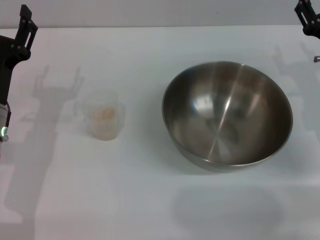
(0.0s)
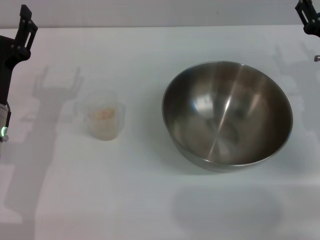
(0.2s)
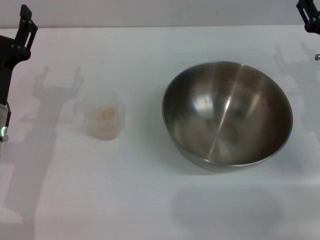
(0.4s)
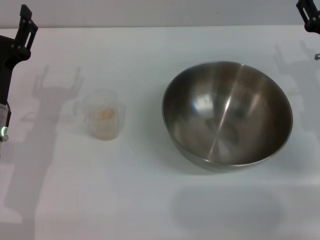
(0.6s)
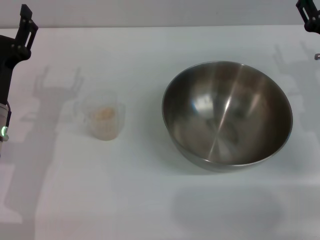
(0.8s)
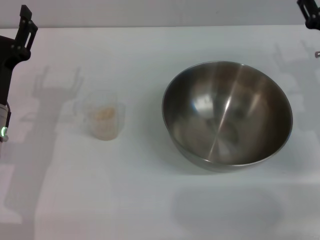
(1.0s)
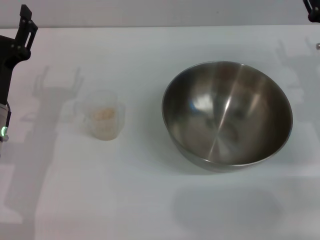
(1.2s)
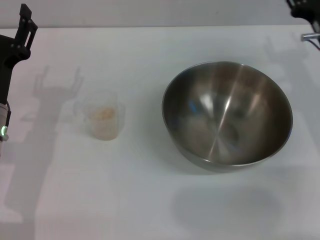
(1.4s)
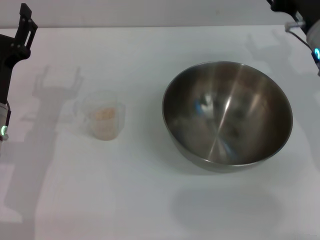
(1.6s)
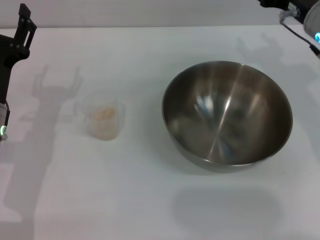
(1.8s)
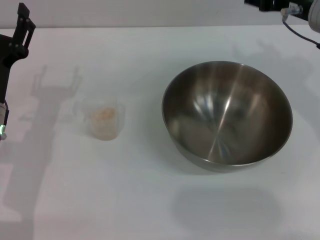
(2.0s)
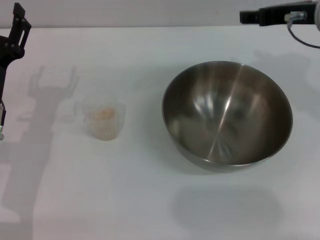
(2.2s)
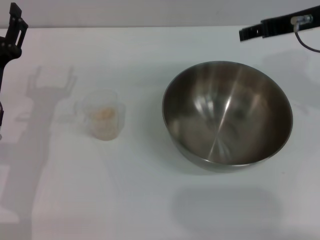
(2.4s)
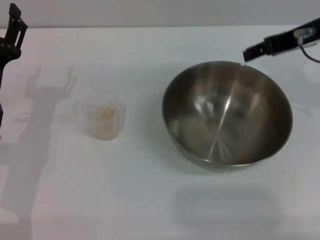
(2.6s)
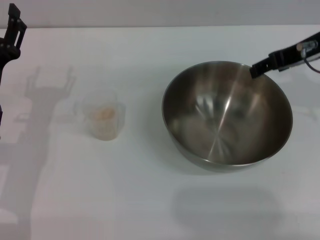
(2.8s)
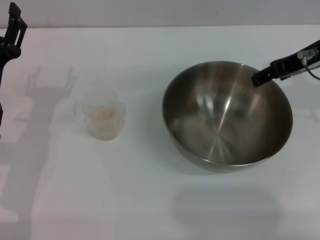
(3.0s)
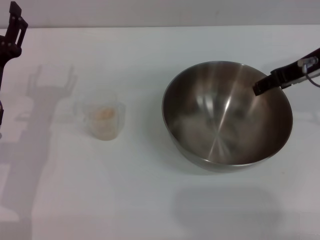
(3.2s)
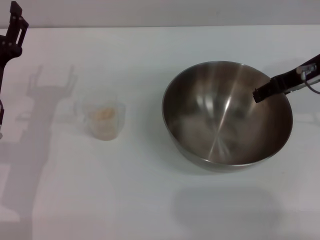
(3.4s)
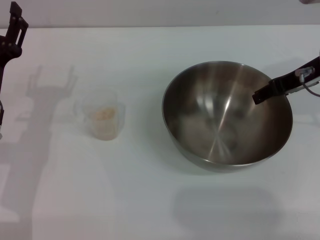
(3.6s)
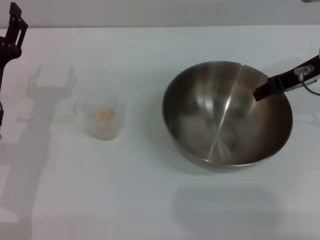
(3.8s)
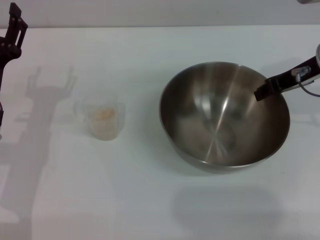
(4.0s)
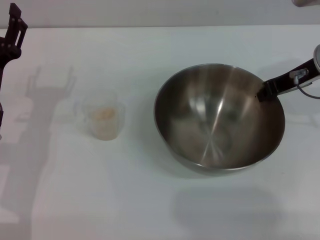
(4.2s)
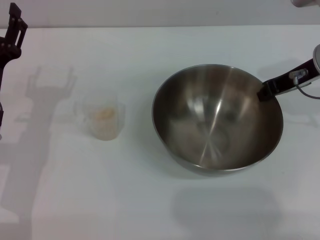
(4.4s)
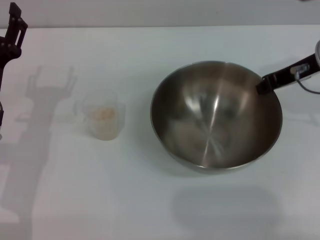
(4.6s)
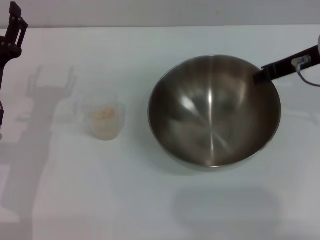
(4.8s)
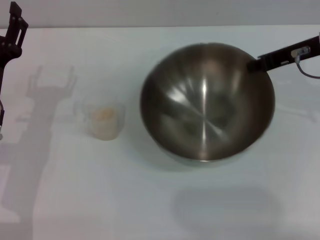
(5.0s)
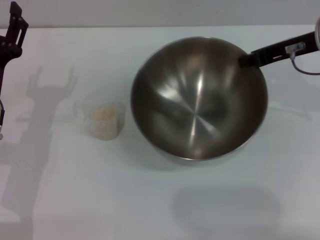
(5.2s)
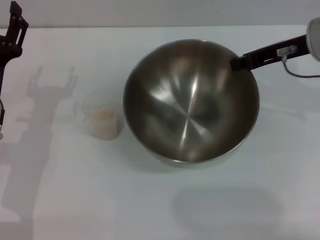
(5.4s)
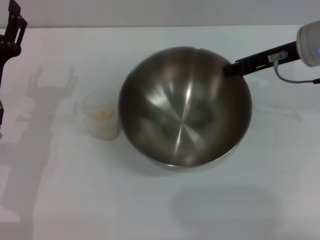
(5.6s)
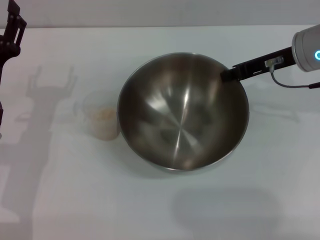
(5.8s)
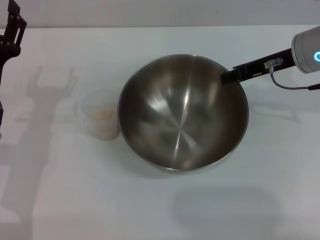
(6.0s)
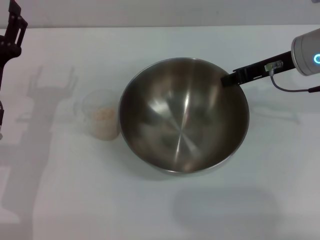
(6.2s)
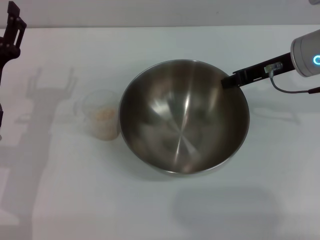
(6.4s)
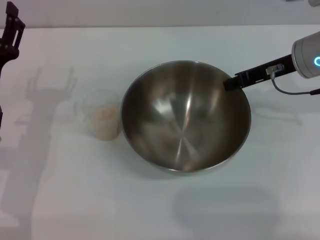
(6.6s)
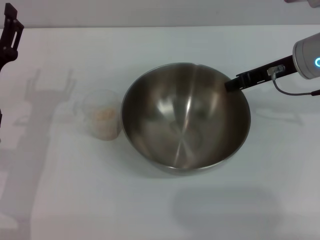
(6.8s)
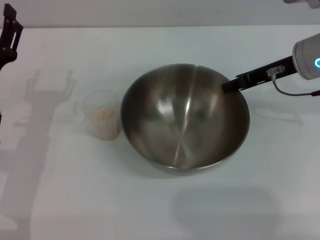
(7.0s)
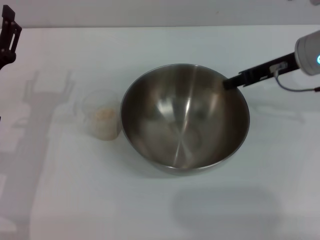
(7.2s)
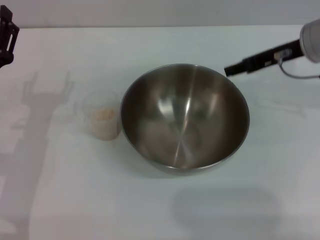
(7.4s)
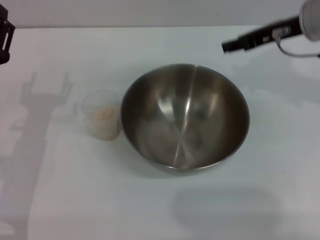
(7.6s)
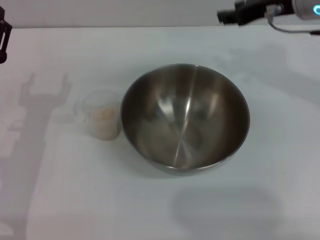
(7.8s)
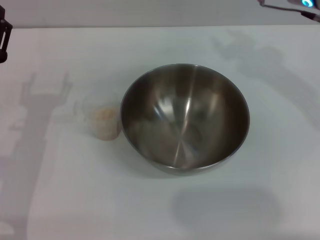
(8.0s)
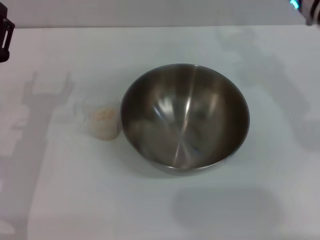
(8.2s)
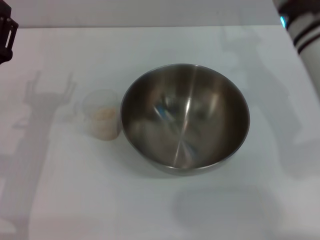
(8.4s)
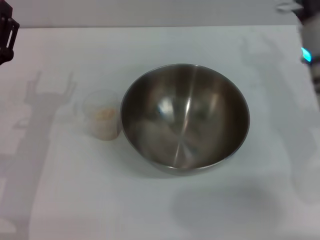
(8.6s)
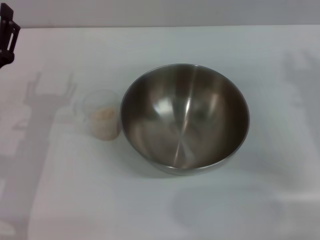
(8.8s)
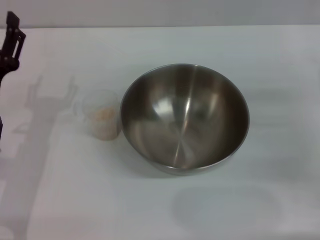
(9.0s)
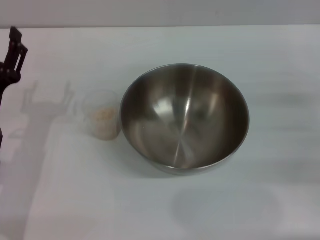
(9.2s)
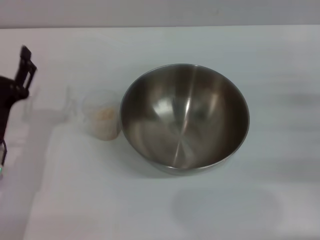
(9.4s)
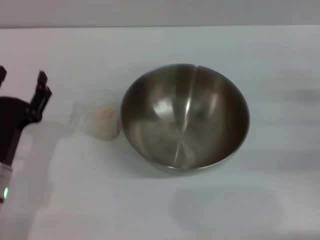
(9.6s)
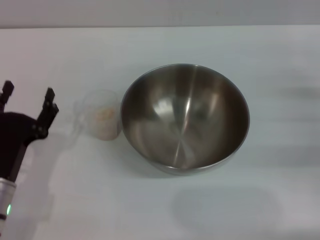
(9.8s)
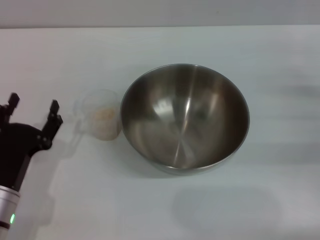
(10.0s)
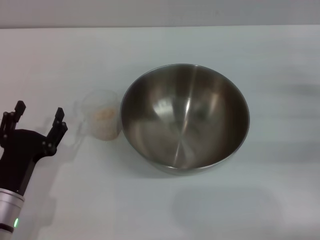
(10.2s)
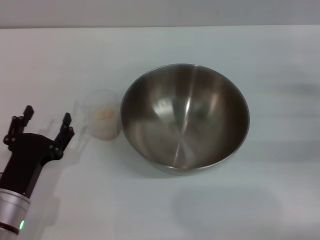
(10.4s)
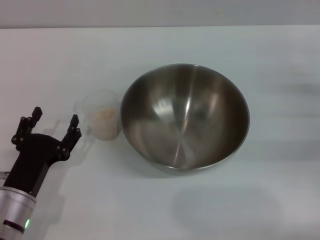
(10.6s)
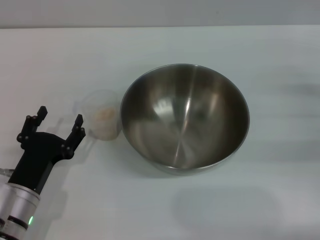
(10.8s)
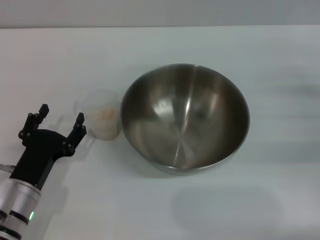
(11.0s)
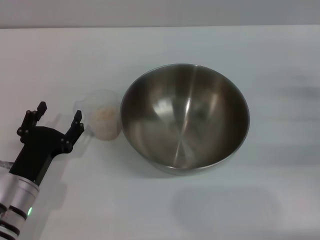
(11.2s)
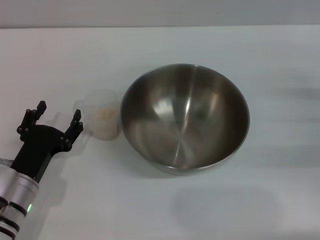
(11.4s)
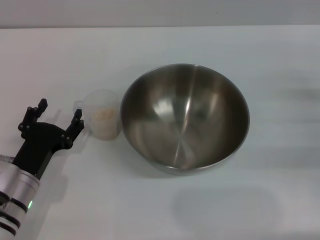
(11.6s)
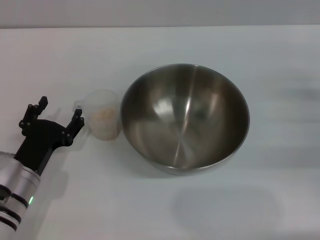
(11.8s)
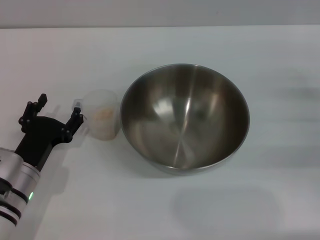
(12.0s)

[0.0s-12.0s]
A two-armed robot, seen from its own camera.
Task of the whole recording: Place the bowl in the middle of the table with one hand and pour the rice from the grain cup into it with the other hand.
Step, 0.0s to 7.6s: Place the bowl in the center of view with the right gripper.
0.0s to 1.6s: The right gripper moves upward, about 5 cm.
1.6s to 3.0s: The right gripper is displaced upward by approximately 10 cm.
3.0s to 4.4s: The right gripper closes its fingers.
6.0s to 7.6s: The right gripper opens its fingers.
7.6s to 9.0s: The right gripper moves downward, backward and to the right, about 20 cm.
9.0s to 10.4s: The left gripper shifts roughly 10 cm backward and downward.
10.4s to 12.0s: The grippers make only small movements.

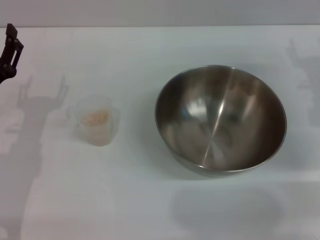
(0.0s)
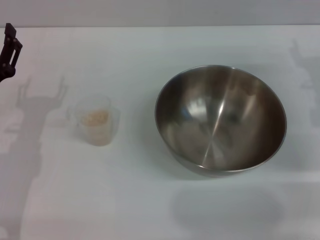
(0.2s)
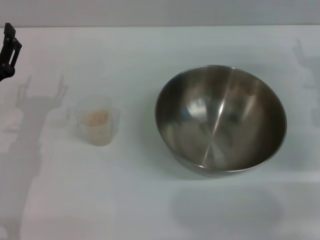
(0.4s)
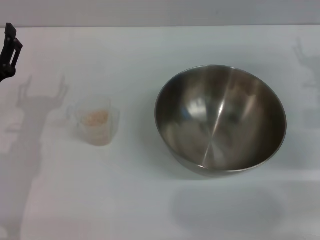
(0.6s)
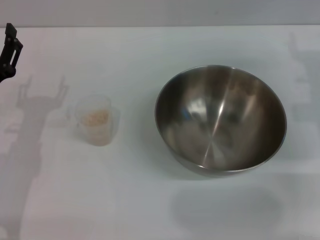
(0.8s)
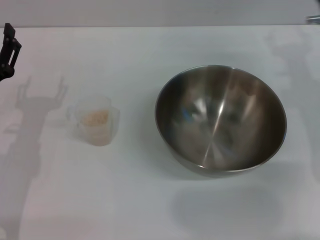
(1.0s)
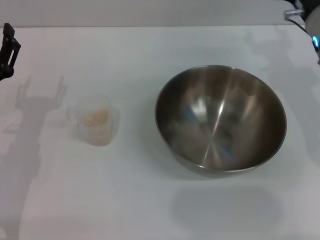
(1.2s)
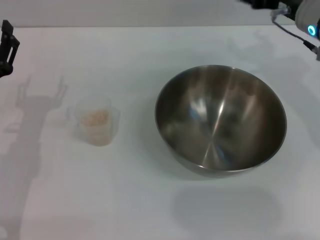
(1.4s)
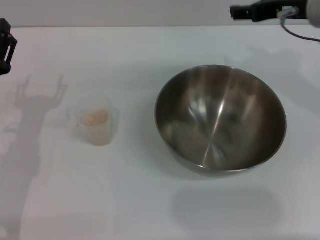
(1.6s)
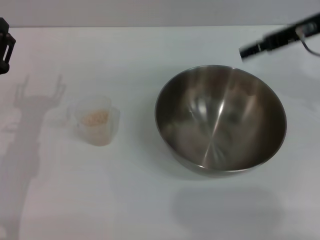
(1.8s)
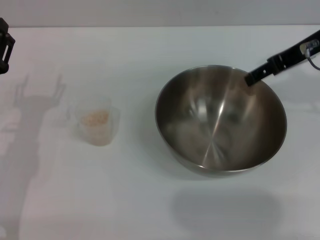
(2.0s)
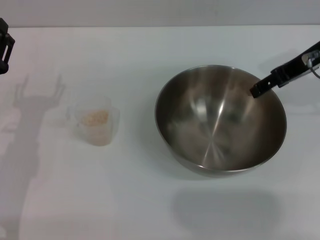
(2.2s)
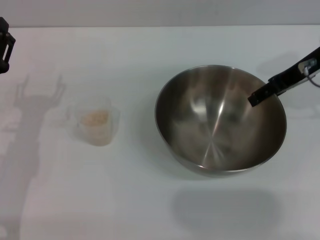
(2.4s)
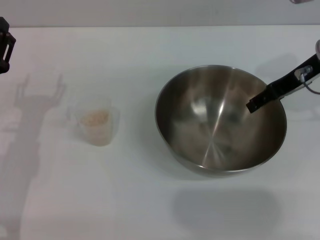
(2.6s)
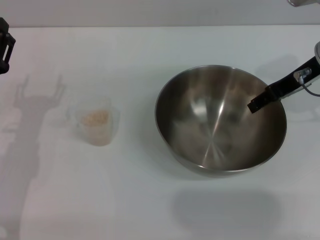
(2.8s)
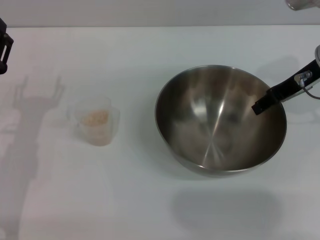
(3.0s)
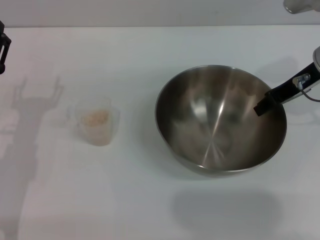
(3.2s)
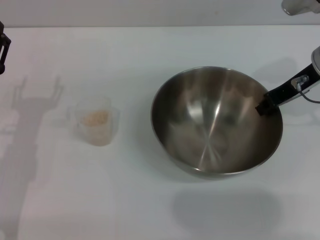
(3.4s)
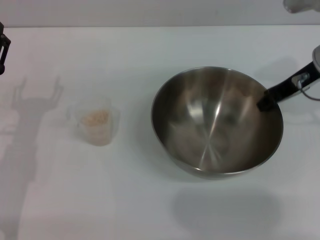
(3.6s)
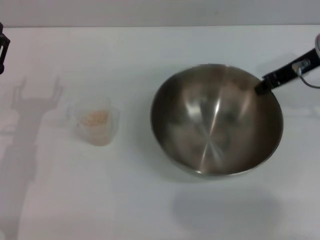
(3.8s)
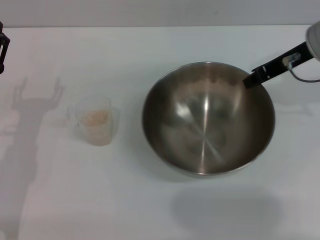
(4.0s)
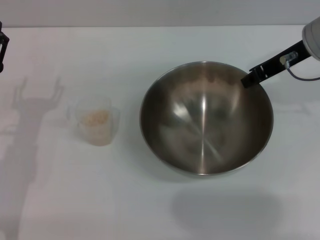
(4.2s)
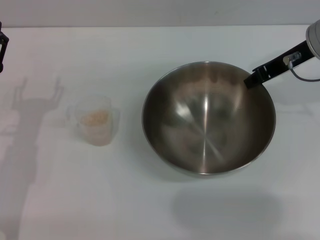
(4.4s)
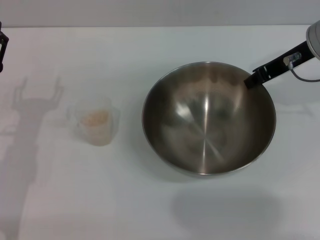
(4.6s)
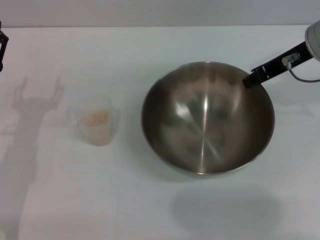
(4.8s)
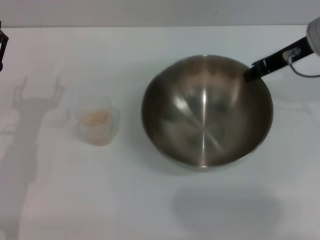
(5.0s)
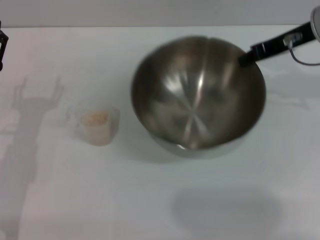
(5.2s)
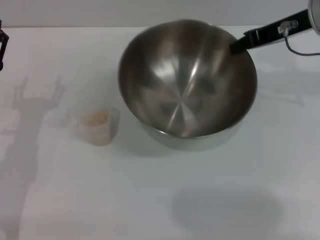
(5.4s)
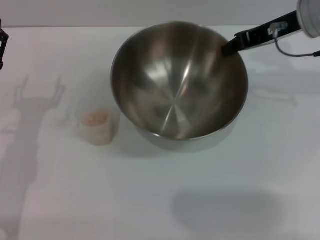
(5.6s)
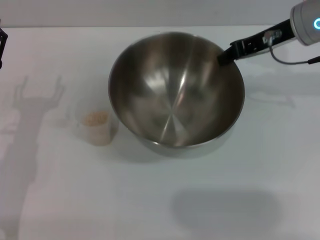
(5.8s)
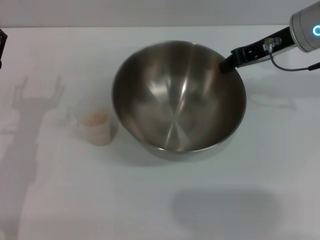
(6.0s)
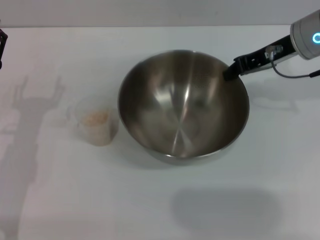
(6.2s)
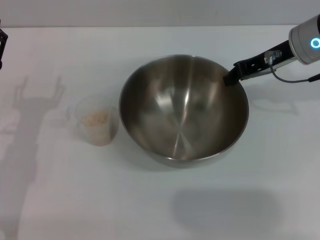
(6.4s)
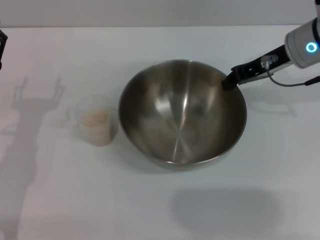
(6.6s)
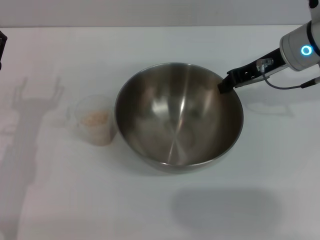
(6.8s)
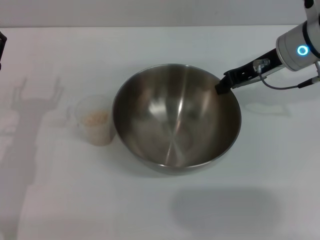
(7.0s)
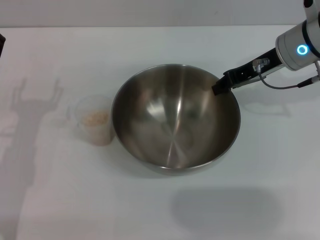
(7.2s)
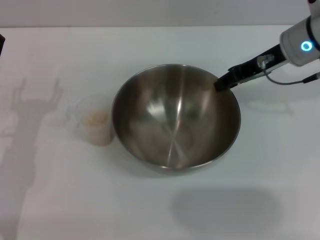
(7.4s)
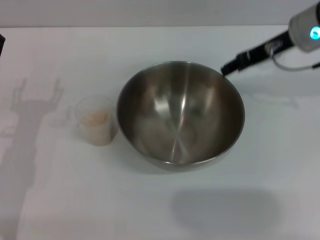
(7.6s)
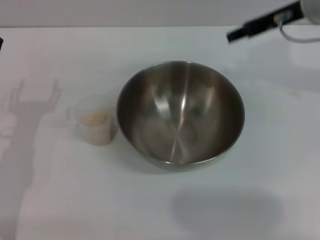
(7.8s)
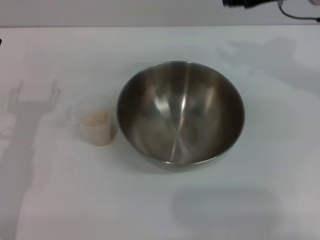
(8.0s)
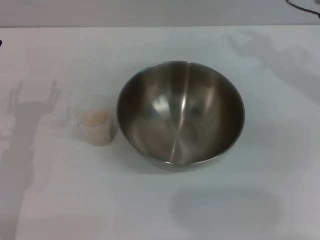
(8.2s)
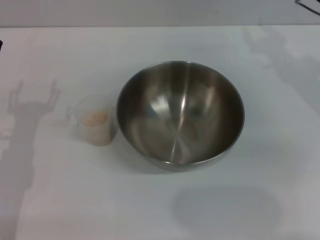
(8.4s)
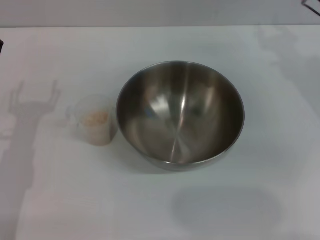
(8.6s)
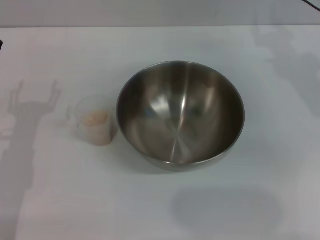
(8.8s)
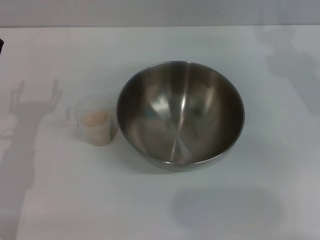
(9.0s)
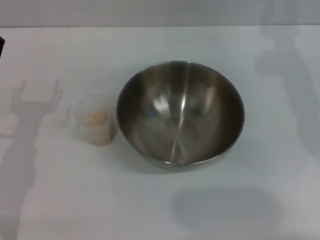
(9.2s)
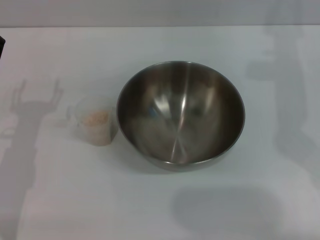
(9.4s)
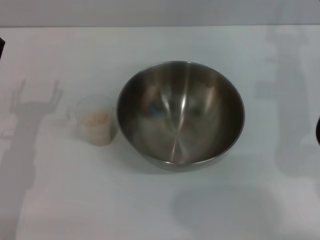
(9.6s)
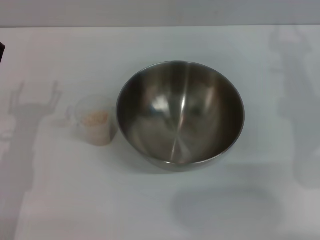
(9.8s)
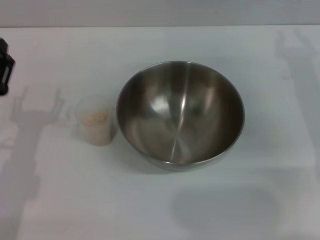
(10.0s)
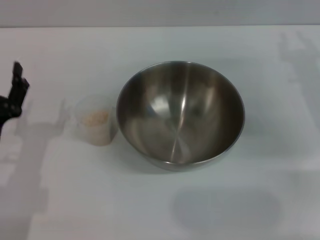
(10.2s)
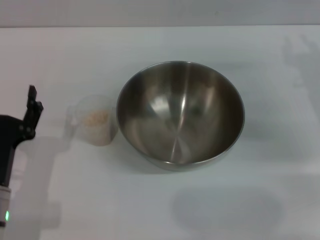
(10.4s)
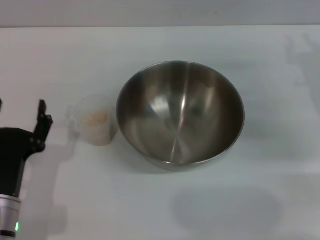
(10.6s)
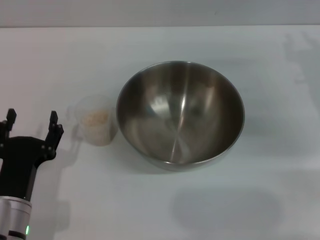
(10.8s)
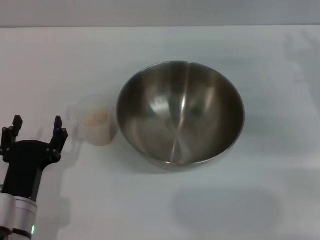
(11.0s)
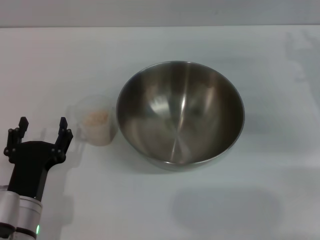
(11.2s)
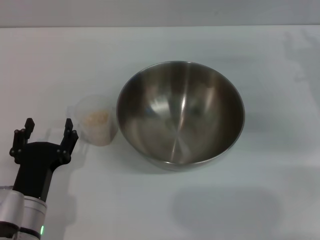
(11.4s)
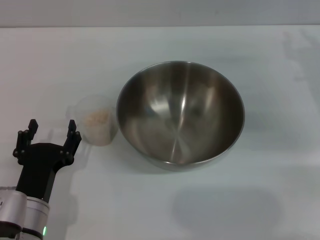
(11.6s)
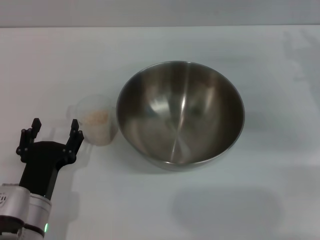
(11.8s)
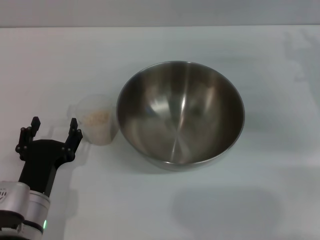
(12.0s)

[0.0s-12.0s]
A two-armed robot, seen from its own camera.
Task of the whole recording: Place the bowl in the middle of the table with one hand and pour the rice from the grain cup into it with the other hand.
Step, 0.0s to 5.0s: Pick up the bowl with the right gripper.
Step, 5.2s to 7.6s: Place the bowl in the center of view with the right gripper.
0.0s to 1.6s: The right gripper travels upward and to the left by approximately 15 cm.
1.6s to 3.0s: The right gripper ends up about 5 cm from where it was.
3.0s to 4.4s: The right gripper closes its fingers.
6.0s to 7.6s: The right gripper opens up.
9.0s to 10.4s: The left gripper heads backward, covering some 5 cm, while the right gripper moves downward and backward, approximately 10 cm.
